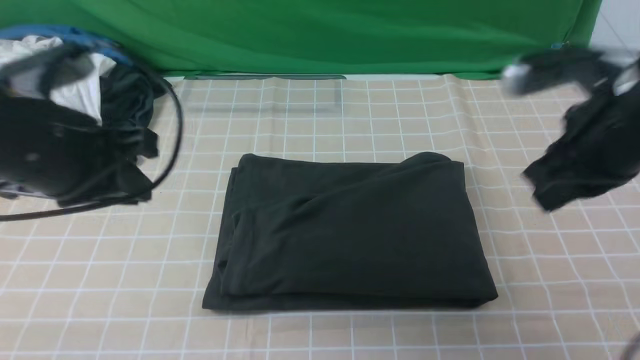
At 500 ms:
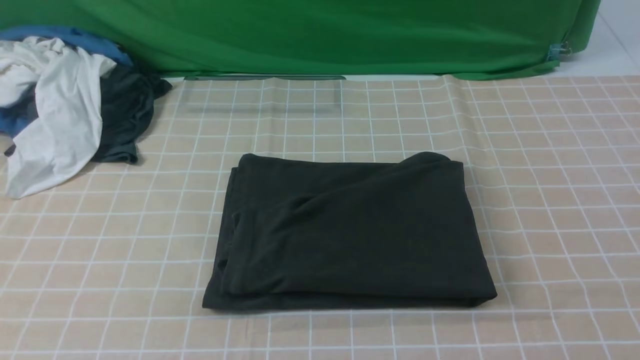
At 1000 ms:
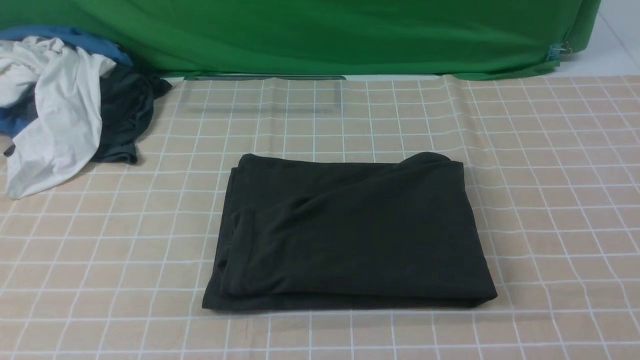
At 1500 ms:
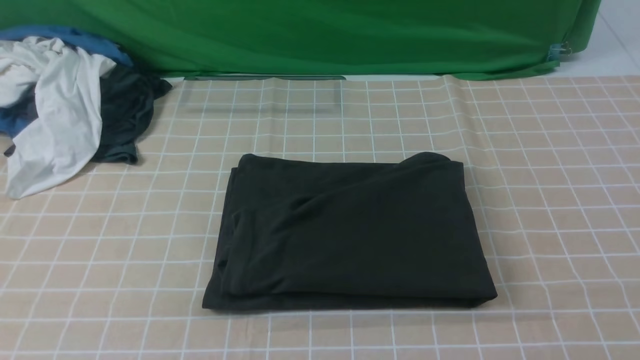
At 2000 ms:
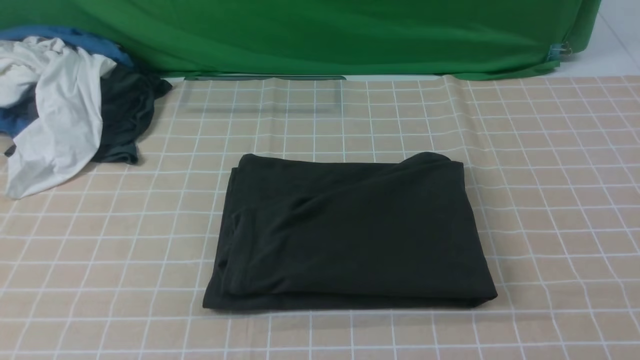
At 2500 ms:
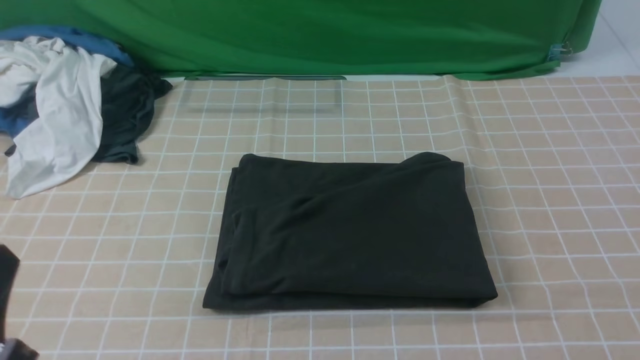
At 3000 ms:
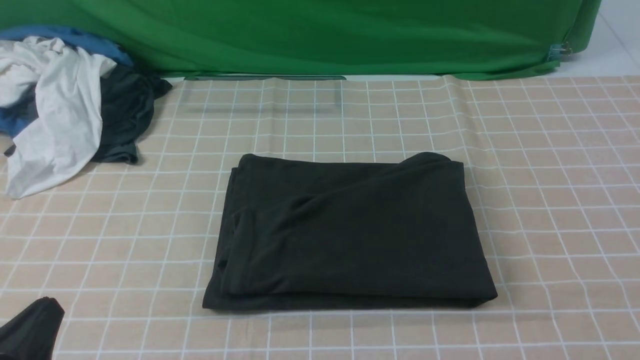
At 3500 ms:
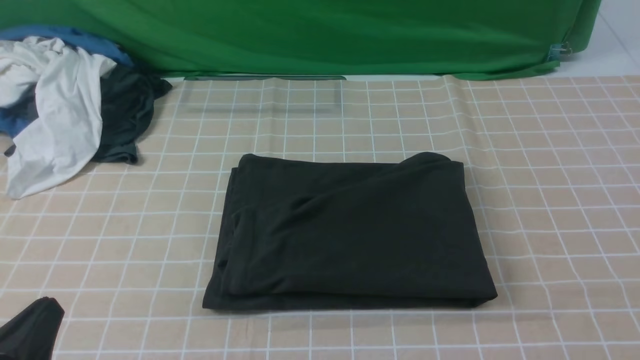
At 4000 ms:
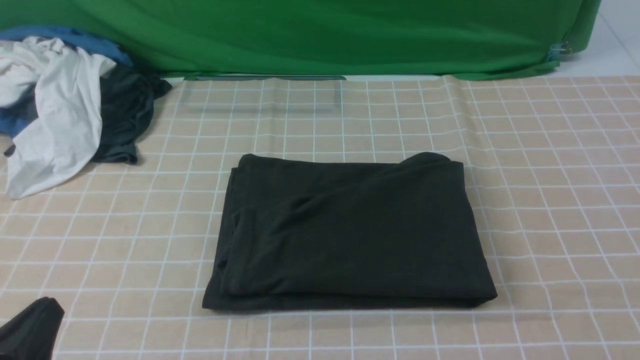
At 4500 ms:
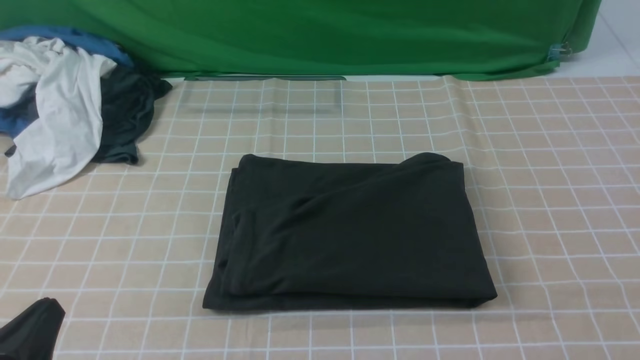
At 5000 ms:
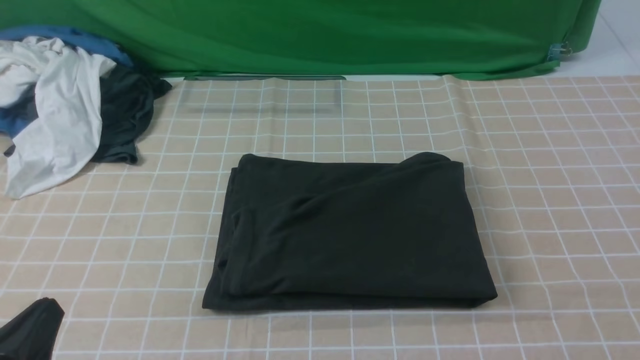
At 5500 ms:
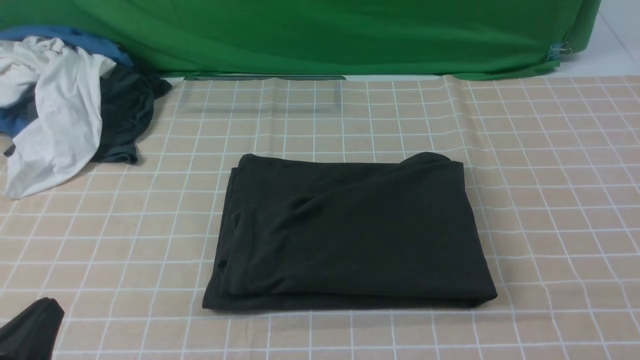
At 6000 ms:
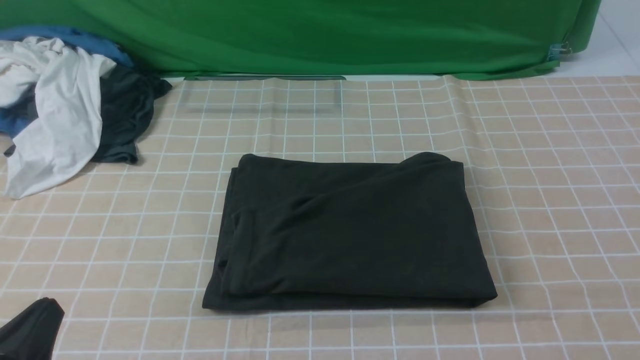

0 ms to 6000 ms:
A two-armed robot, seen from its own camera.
0 ms to 2000 ms: The left gripper moves backward, some 15 cm. Meanwhile the right gripper shifts some 25 cm backward.
2000 ms to 4000 ms: The left gripper travels downward by about 20 cm.

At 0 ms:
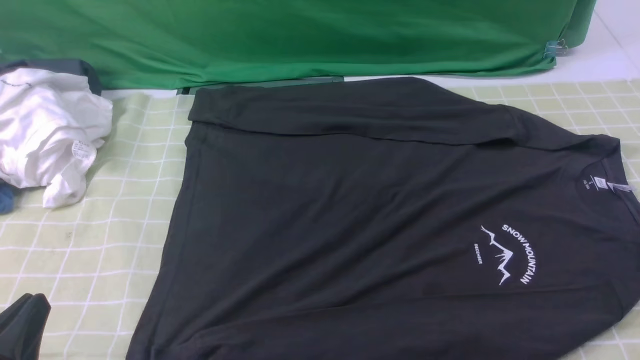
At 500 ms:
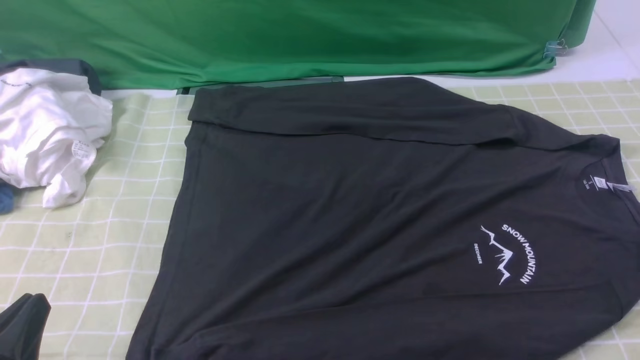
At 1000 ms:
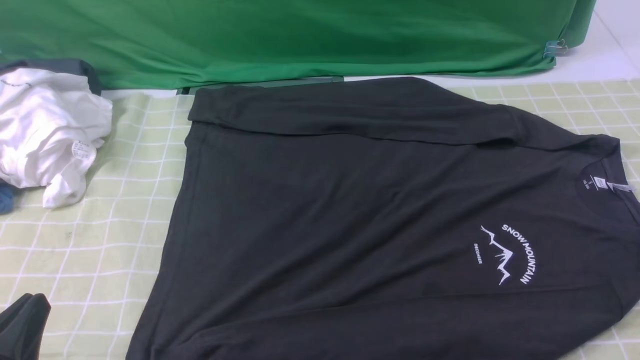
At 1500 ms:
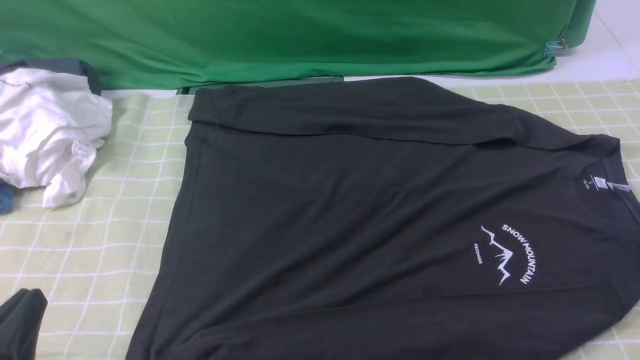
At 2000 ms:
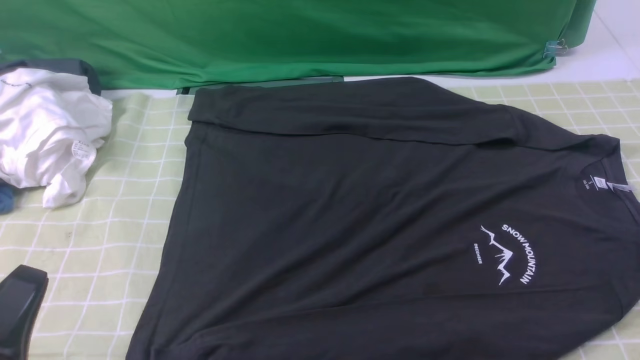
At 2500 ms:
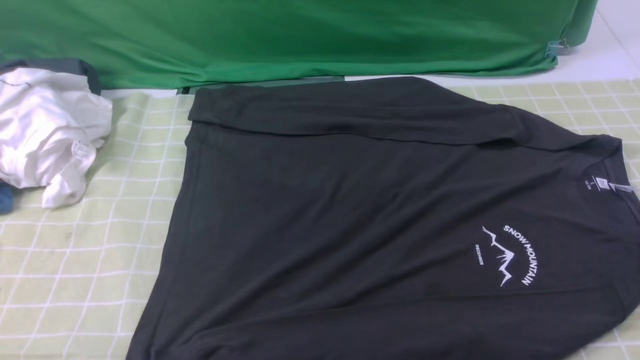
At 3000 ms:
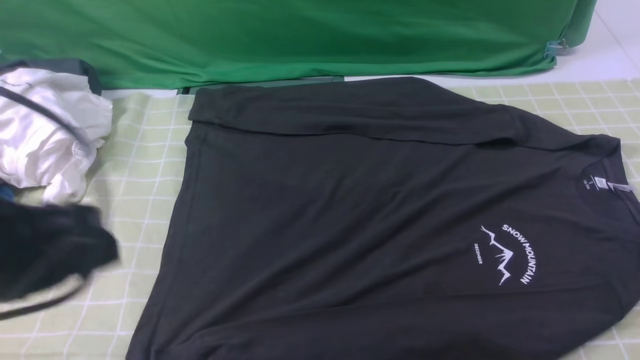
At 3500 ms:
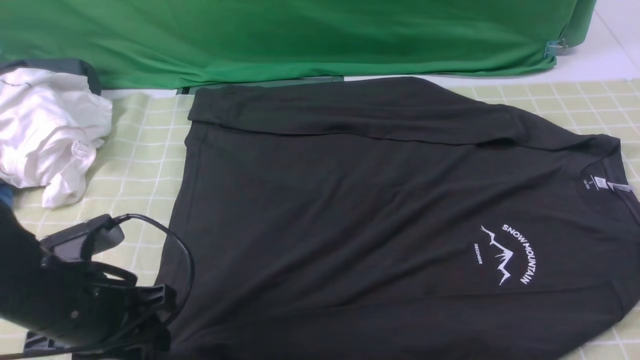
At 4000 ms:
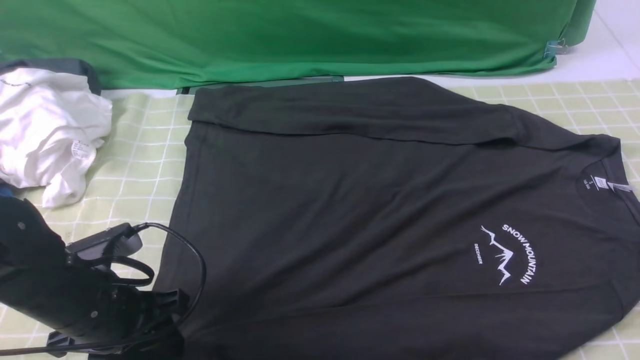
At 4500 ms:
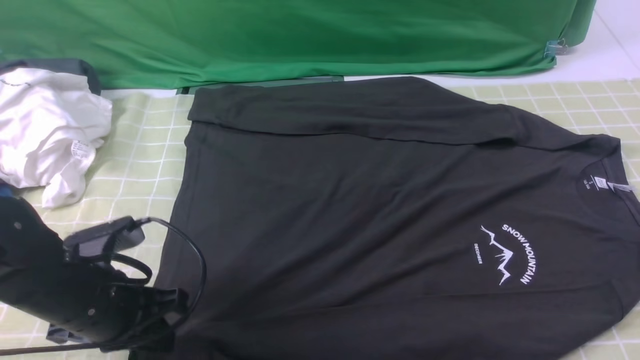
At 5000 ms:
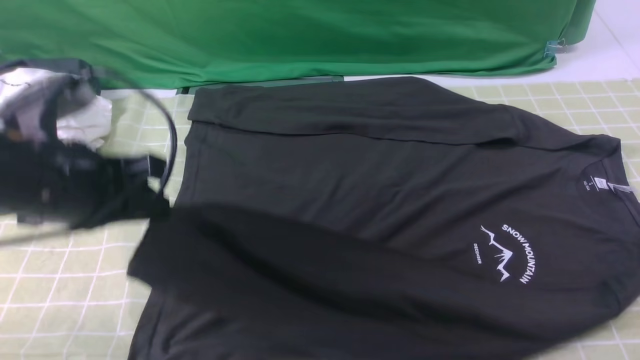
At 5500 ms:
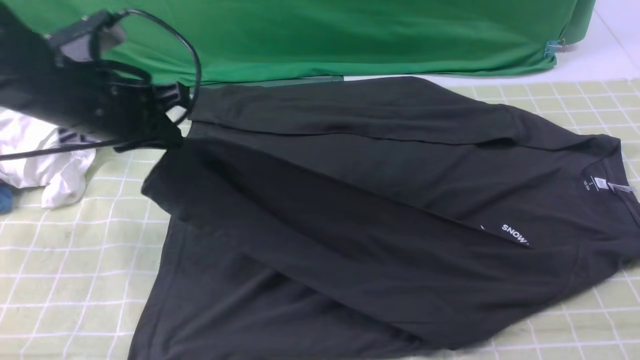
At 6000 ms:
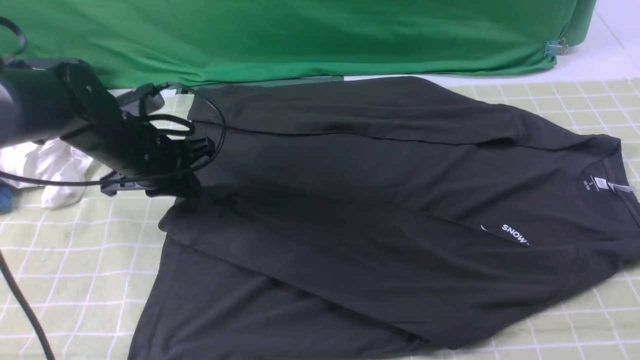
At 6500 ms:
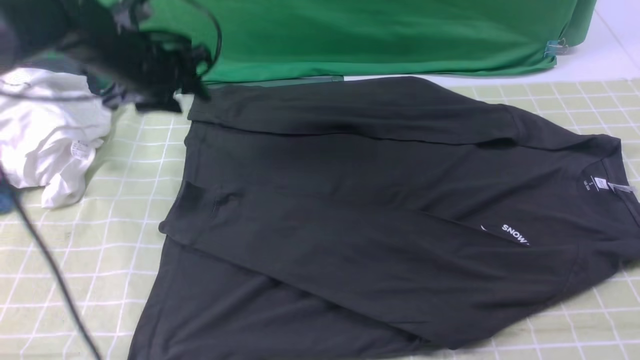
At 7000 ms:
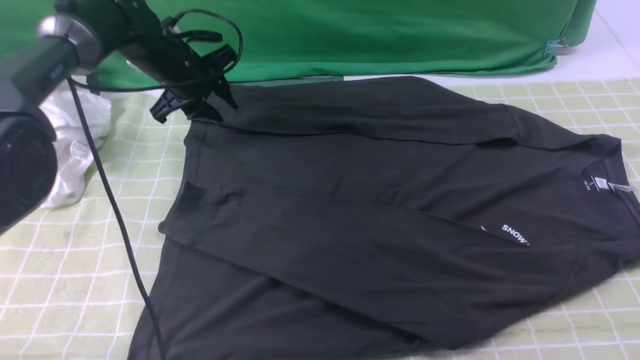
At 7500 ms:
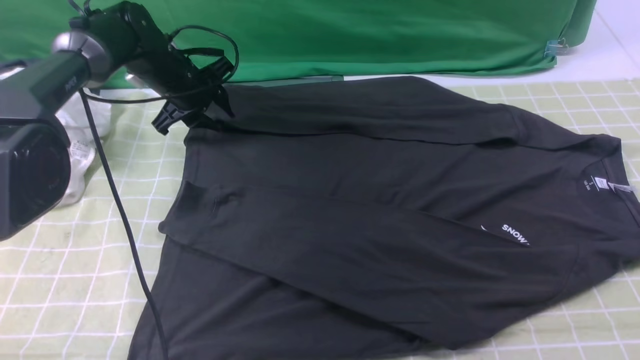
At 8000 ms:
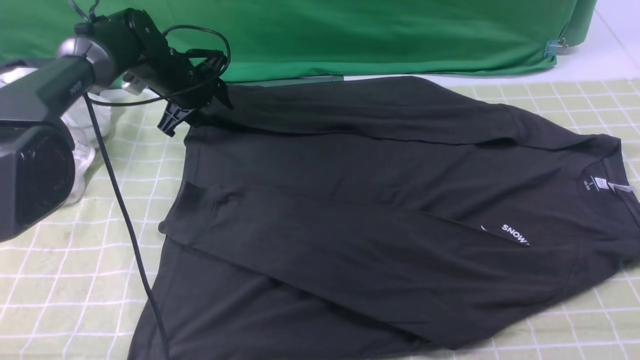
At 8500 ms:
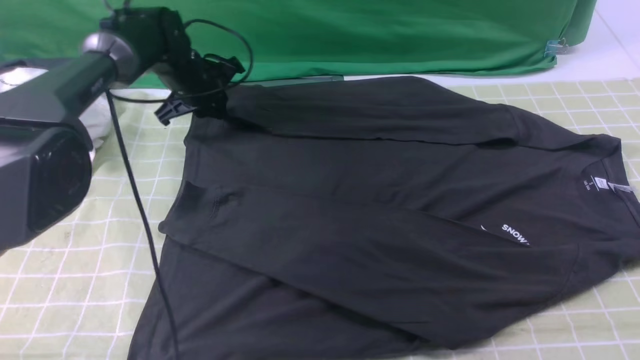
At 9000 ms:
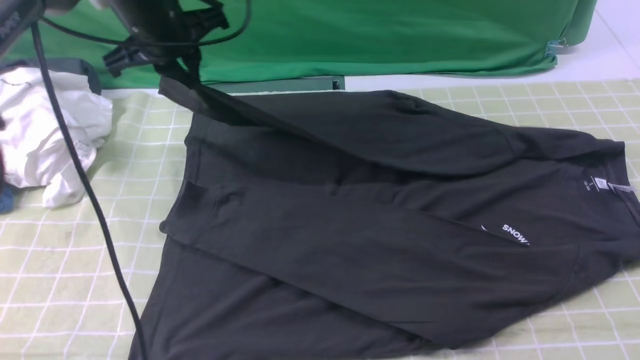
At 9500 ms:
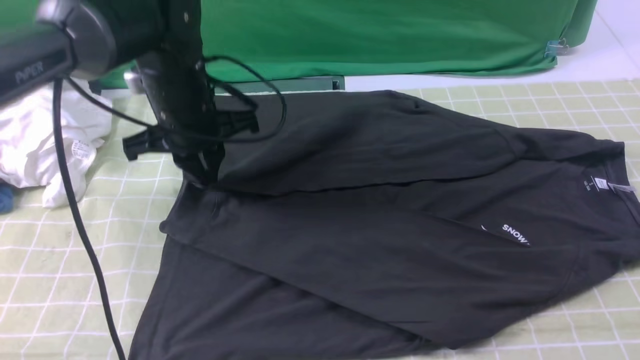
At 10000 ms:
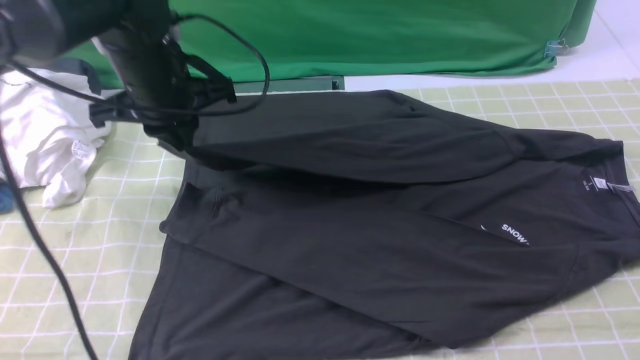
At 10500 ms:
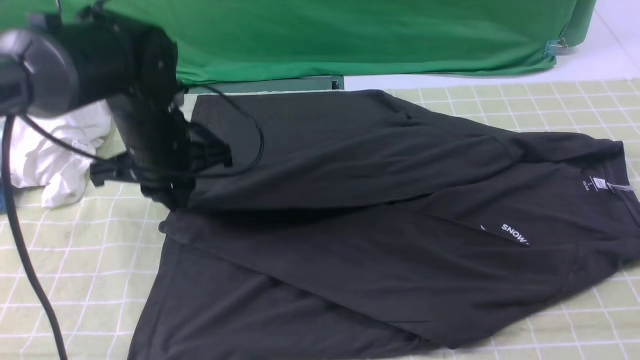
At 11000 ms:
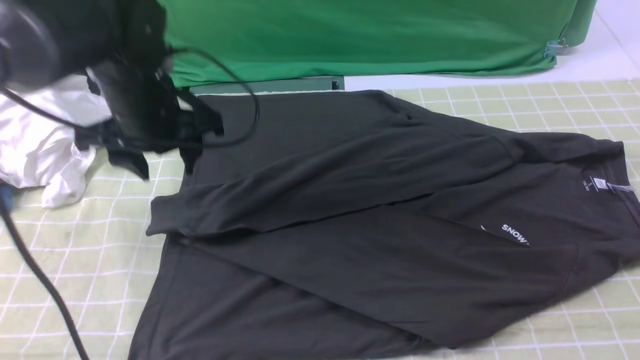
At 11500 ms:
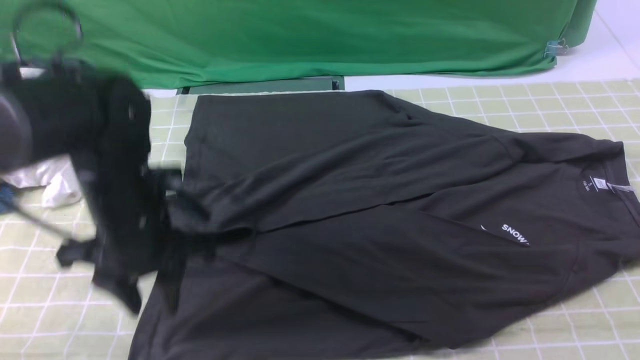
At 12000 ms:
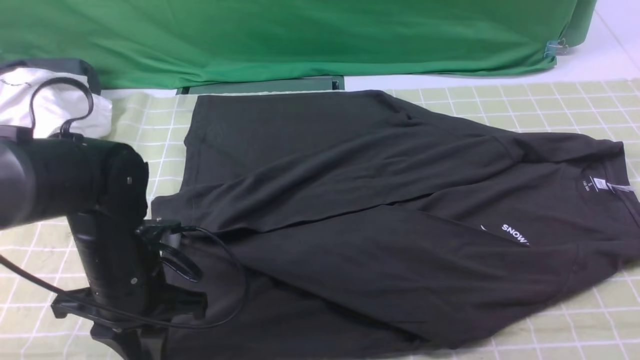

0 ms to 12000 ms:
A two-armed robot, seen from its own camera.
Step, 0 ms to 4000 ms: use the left arm to clamp the cuff closest to it.
Step, 4500 ms to 6000 ms: use the left arm to drag and place the cuff at the centered position on the left edge of the fabric.
Step, 6500 ms to 8000 ms: use the left arm to clamp the cuff farthest from it.
Step, 8500 ms to 11000 ms: use the left arm to drag and drop the cuff onto the cuff closest to the left arm.
2000 ms to 4000 ms: The left gripper is displaced forward by some 15 cm, and opens its fingers.
4000 ms to 6000 ms: The left gripper shifts some 15 cm forward, and closes its fingers.
6000 ms to 8000 ms: The left gripper shifts some 15 cm forward.
8000 ms to 10000 ms: The left gripper shifts approximately 20 cm backward and upward, and closes.
10000 ms to 12000 ms: The left gripper shifts roughly 15 cm backward and downward, and opens.

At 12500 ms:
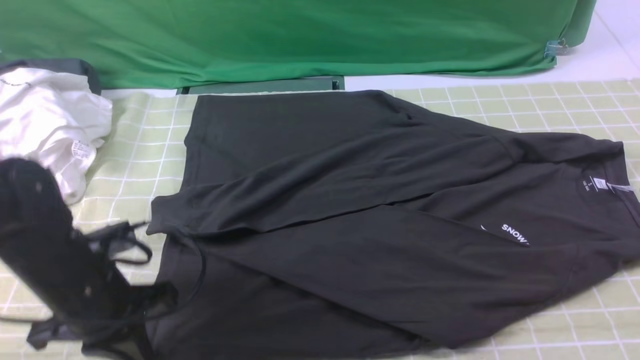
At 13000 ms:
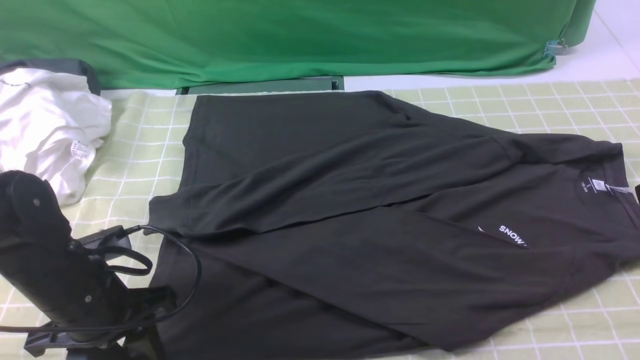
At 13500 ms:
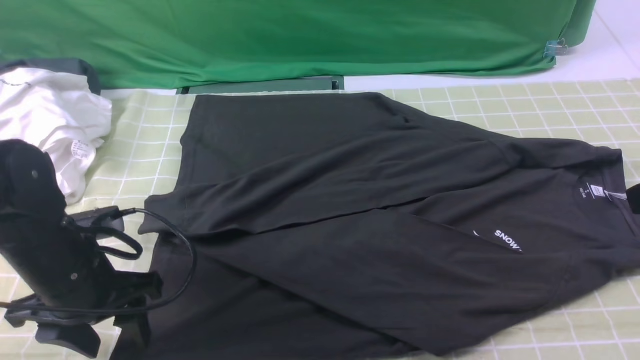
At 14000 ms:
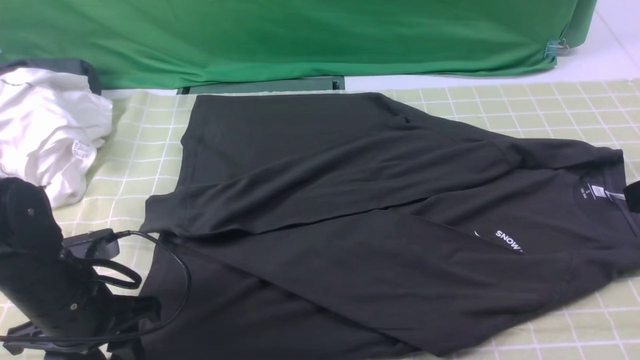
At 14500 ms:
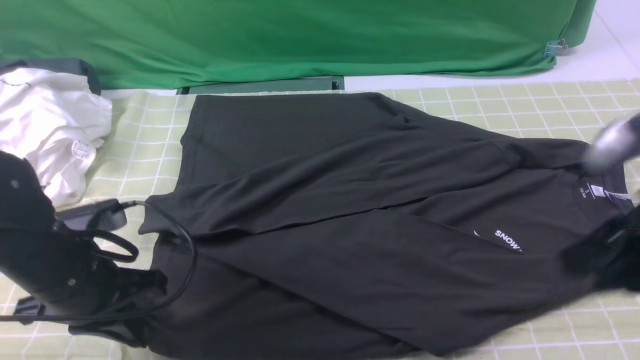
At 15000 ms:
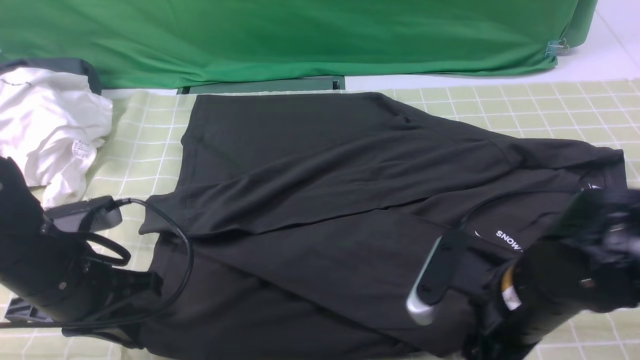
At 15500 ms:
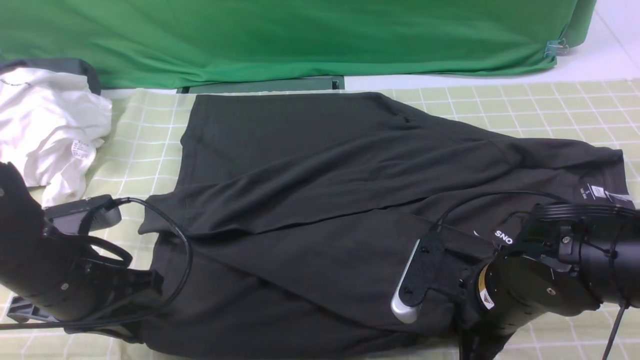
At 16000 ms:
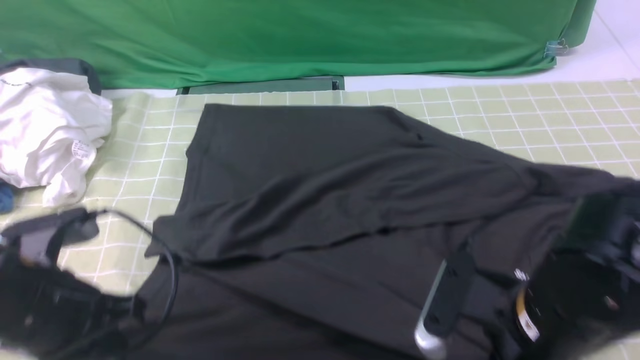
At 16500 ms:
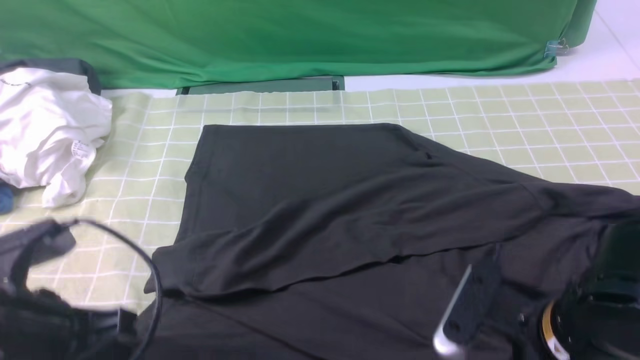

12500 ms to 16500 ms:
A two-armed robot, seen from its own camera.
Step, 12500 ms to 15500 ms: use both arms simultaneously to clamp the lower edge of the clothing fabric.
12500 ms to 14500 ms: The right gripper moves downward, some 5 cm. The left gripper opens, then closes once more.
14500 ms to 16500 ms: The left gripper heads backward and upward, covering some 10 cm. Meanwhile the right gripper goes some 10 cm downward and to the left, and closes.
